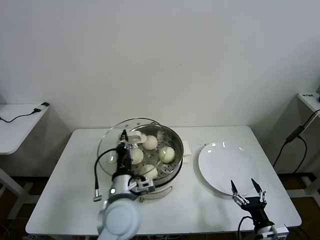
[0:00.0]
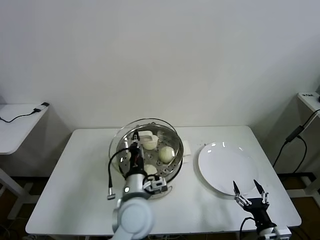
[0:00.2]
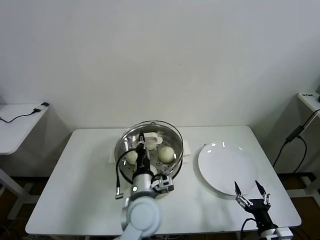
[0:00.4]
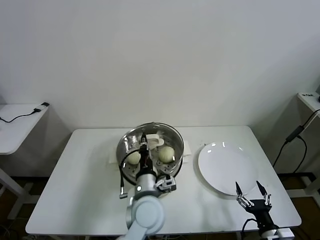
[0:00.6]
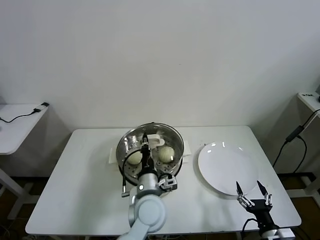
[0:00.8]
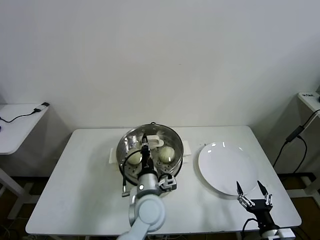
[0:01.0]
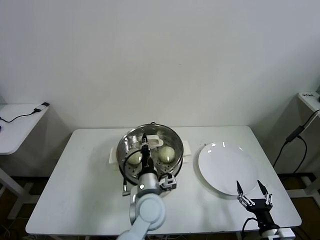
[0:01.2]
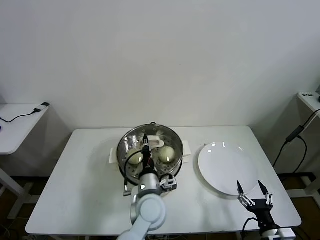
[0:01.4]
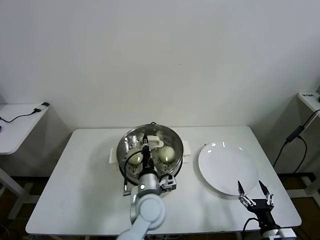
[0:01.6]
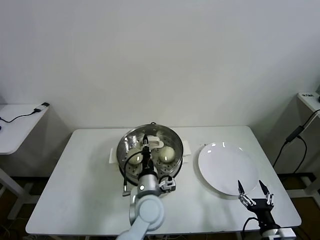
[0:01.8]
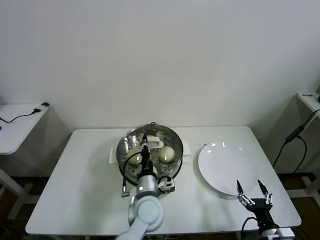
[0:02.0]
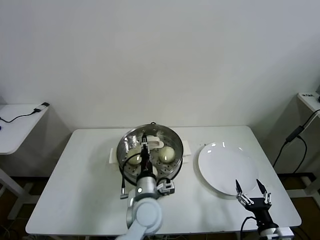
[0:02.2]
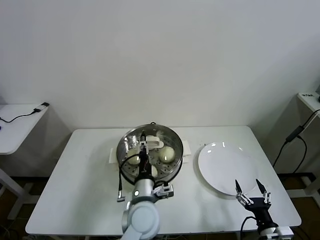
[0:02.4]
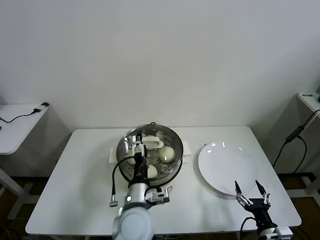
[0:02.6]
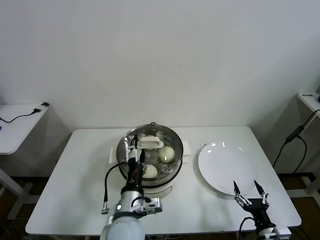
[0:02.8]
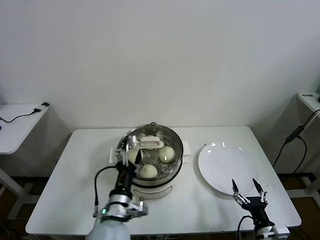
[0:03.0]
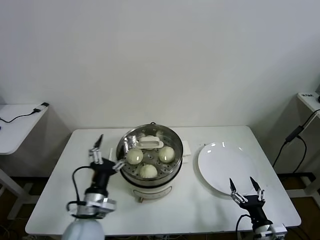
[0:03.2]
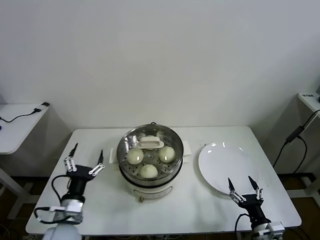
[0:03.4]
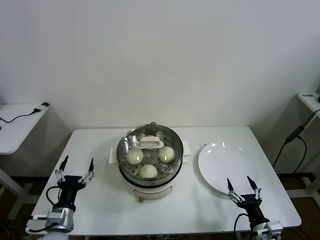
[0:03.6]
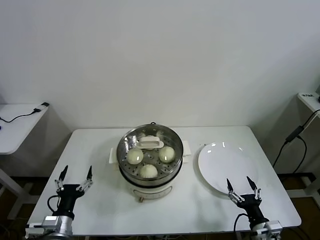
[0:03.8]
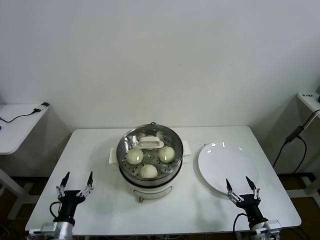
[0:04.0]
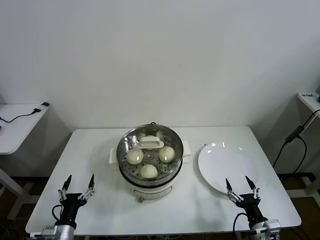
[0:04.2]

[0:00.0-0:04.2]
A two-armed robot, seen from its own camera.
Task of the whole recording: take steamed baozi put them in steamer then cover it.
Step, 0:00.0 to 0:02.0: Place the pot lid on the steamer with left gripper.
0:00.0 to 0:01.4: The left gripper goes about 10 cm to the right and downward.
0:01.4 to 0:02.8: The left gripper heads backward and to the left, covering roughly 10 cm, and opens its fingers.
0:02.8 to 0:04.2: The left gripper heads to the left and downward, covering about 25 cm.
